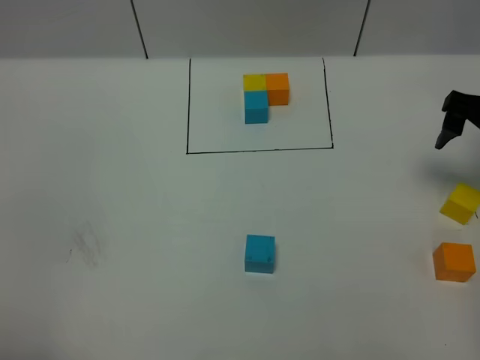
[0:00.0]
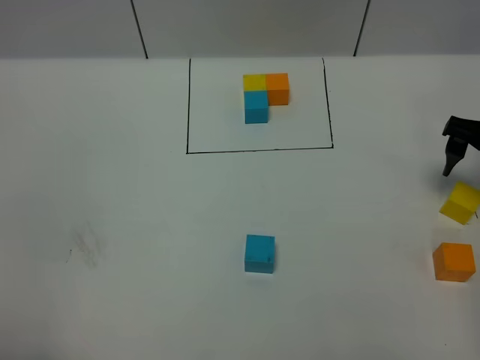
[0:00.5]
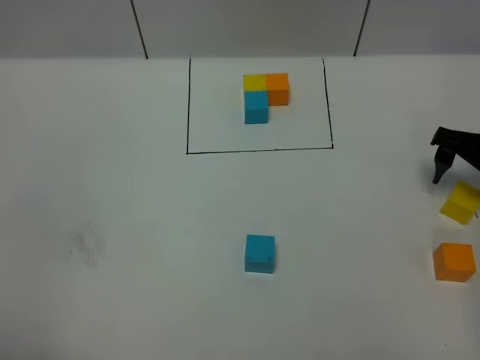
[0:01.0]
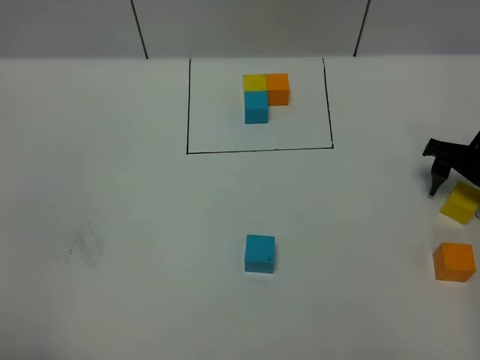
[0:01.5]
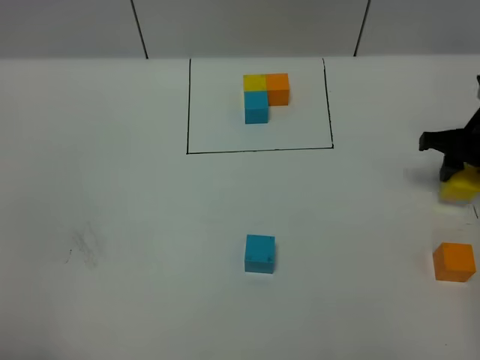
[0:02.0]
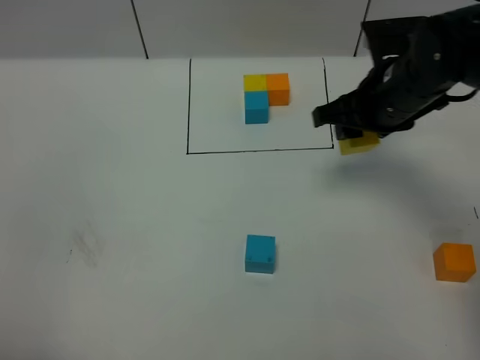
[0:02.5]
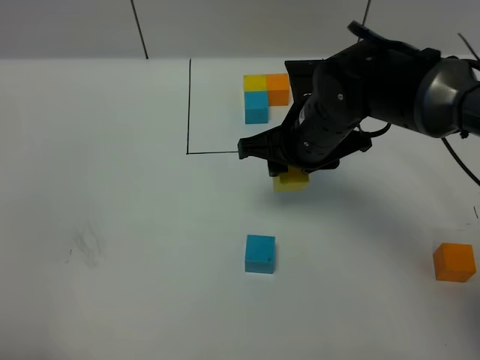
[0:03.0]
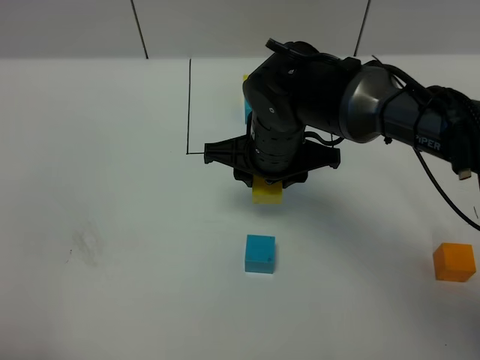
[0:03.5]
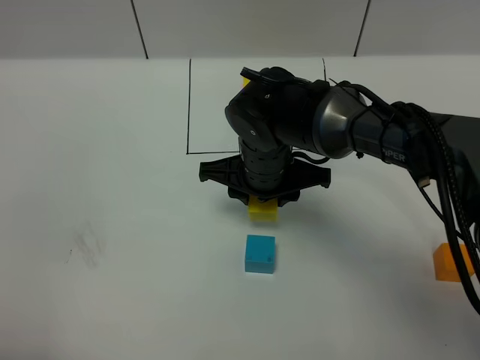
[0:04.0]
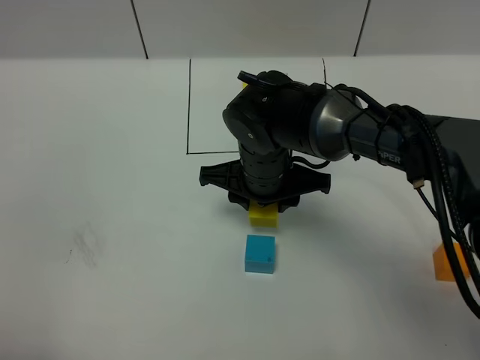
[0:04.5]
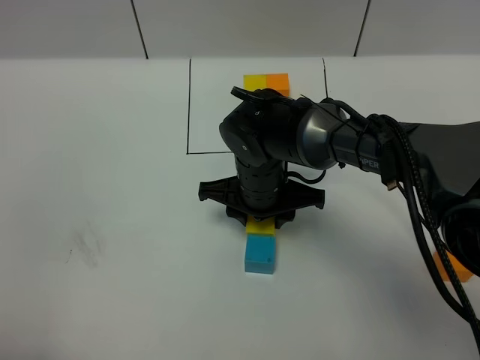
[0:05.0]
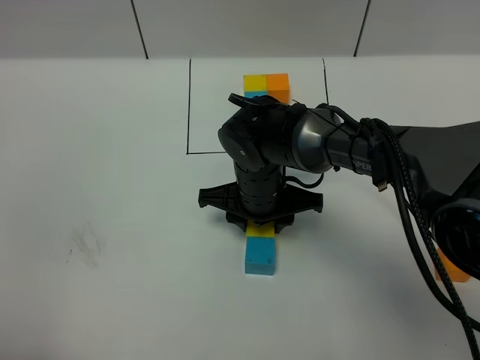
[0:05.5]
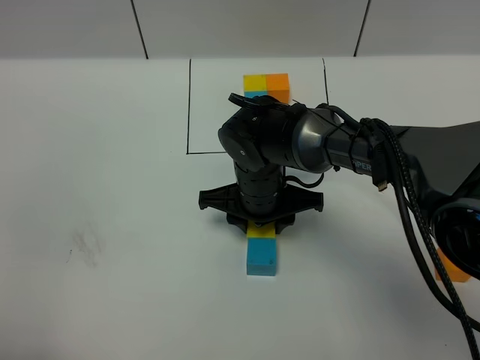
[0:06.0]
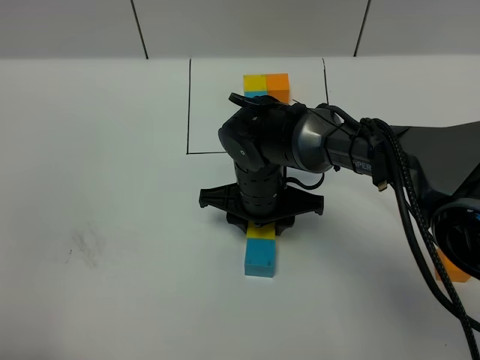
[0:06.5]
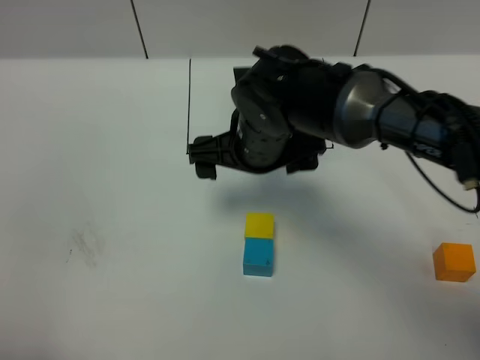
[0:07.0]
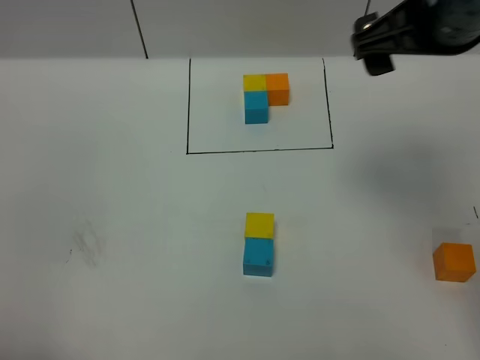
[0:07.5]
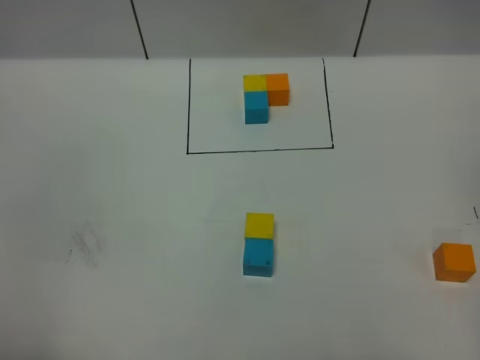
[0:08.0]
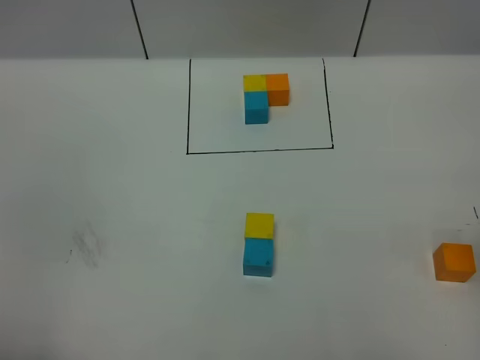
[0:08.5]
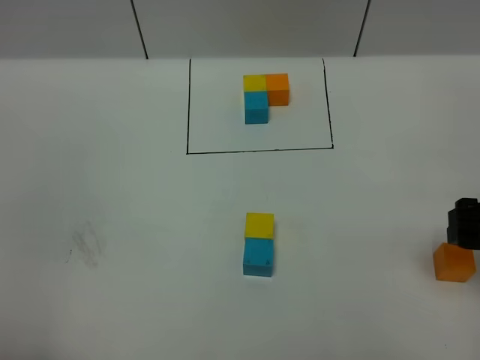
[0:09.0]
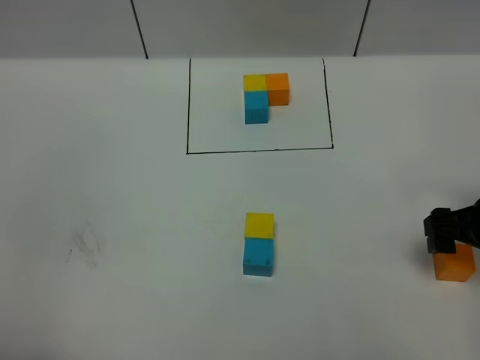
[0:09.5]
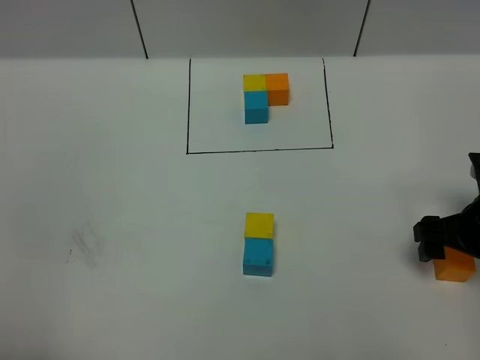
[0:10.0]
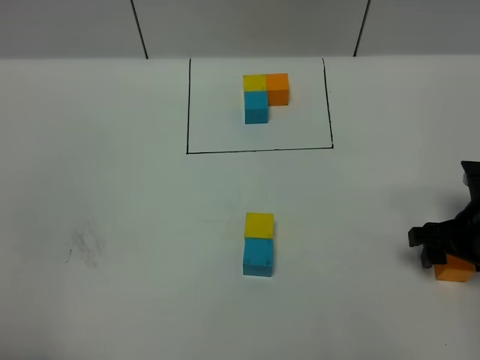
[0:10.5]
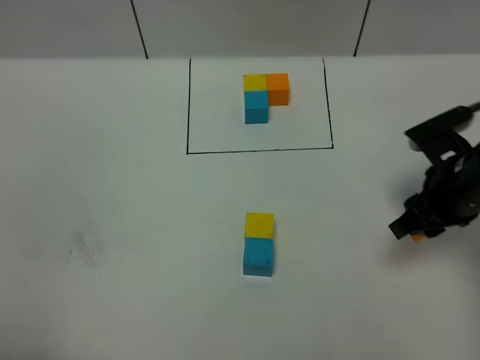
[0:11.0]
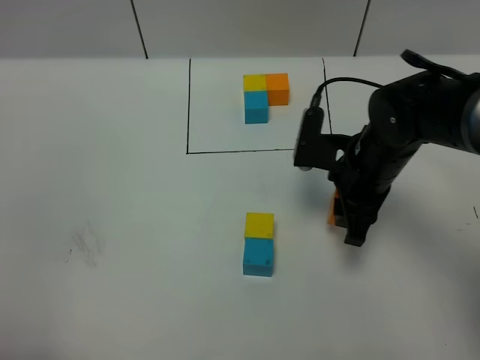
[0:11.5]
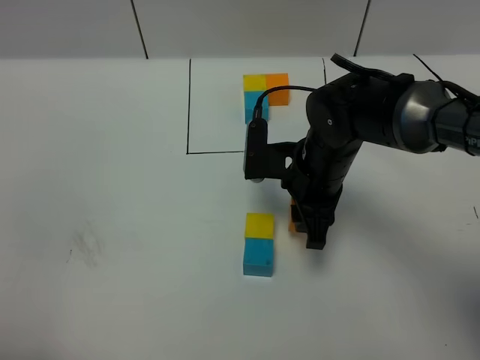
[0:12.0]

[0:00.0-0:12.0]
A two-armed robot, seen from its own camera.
Task of the whole recording: According to the building block template in front, assemble the scattered blocks together.
Step, 0:00.0 to 0:06.5: Put the yellow cube on the behind of the blue cube.
0:00.0 to 0:02.0: The right gripper is displaced downward by some 5 cm, and closes its fingers.
0:02.0 to 0:04.0: The right gripper is displaced to the left by some 30 cm.
0:04.0 to 0:06.0: The grippers make only small movements.
0:06.0 to 0:08.0: The right gripper shifts approximately 40 cm upward and to the right, and opens.
0:08.0 to 0:10.0: The right gripper travels downward by roughly 30 cm.
0:10.0 to 0:12.0: The right gripper travels to the left by approximately 20 cm, and closes its fingers.

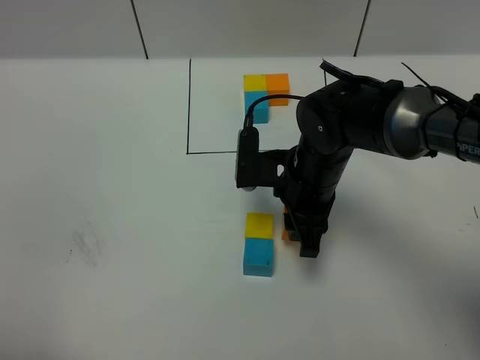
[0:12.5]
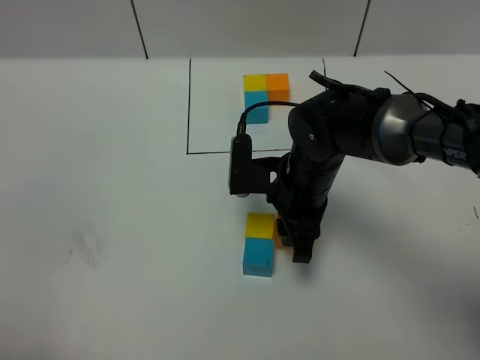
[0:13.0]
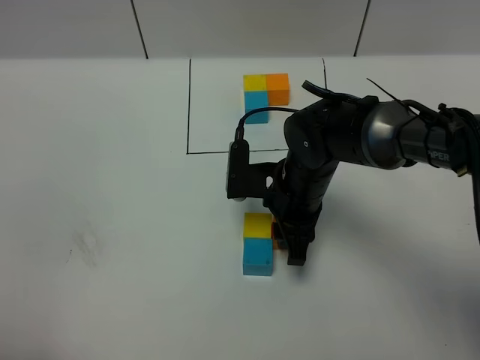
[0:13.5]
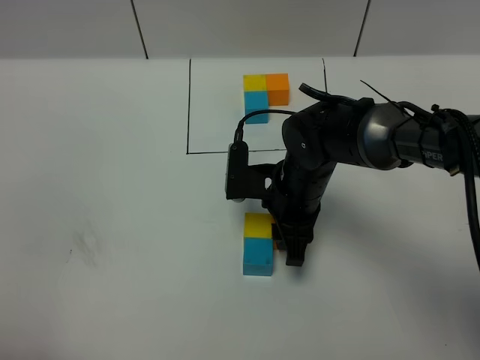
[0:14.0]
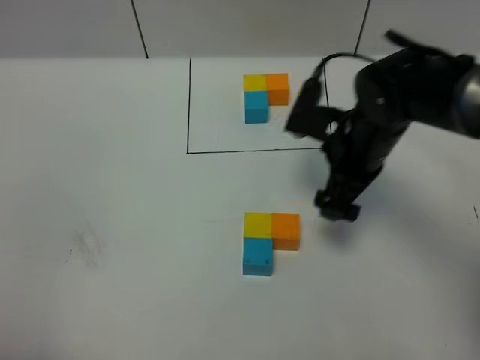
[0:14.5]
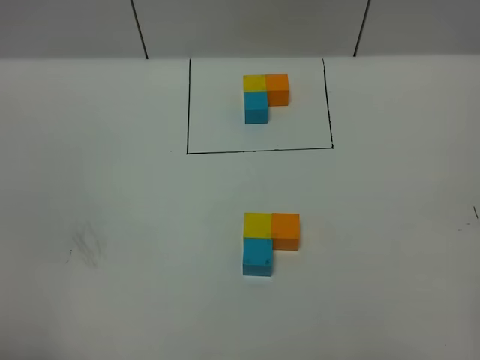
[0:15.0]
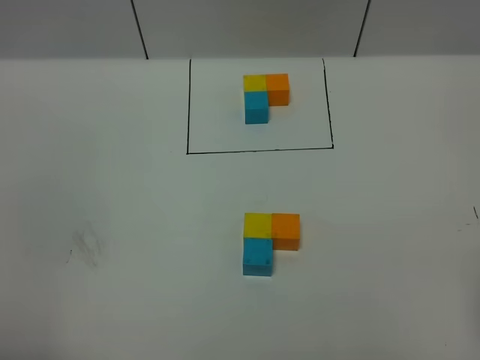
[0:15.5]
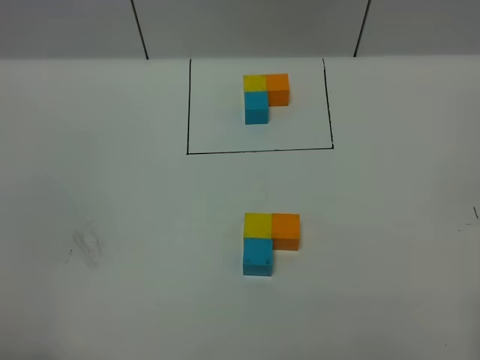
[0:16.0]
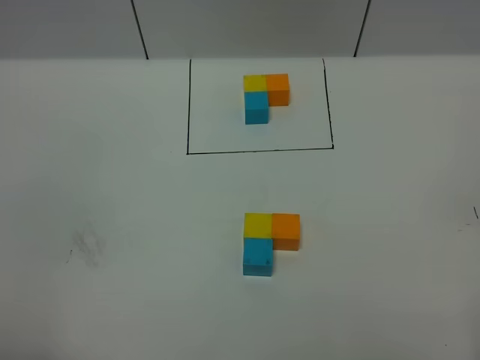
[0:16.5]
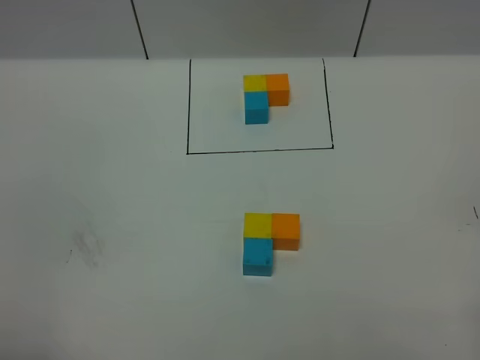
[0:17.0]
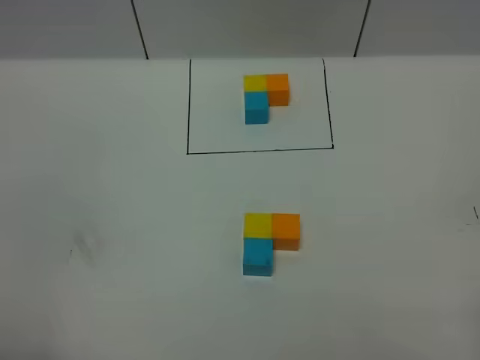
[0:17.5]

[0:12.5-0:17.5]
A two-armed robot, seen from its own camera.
Task of the whole recording: According to the building block template in front, assemble the scattered blocks together.
0:12.5 to 0:15.0: The right gripper goes approximately 30 cm to the right and upward, and opens its fingers.
